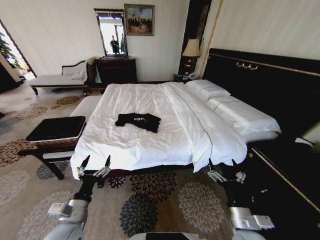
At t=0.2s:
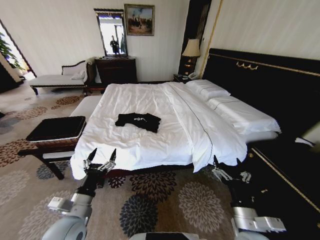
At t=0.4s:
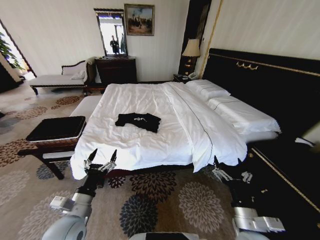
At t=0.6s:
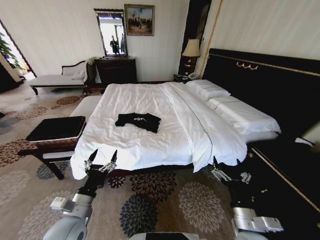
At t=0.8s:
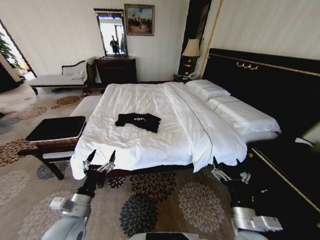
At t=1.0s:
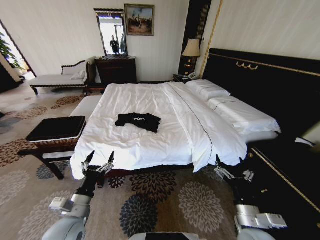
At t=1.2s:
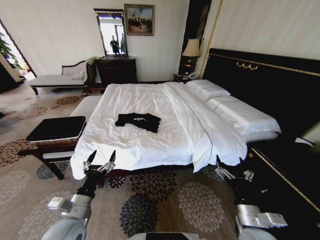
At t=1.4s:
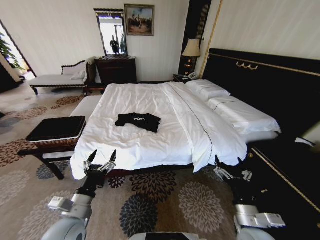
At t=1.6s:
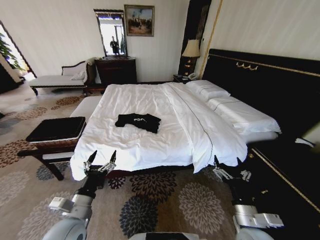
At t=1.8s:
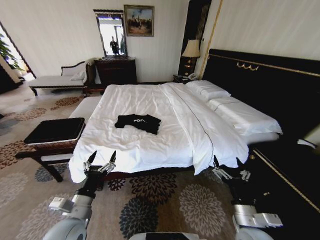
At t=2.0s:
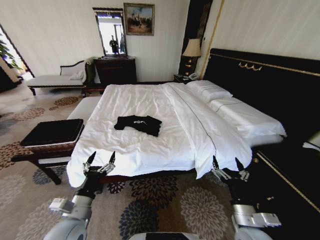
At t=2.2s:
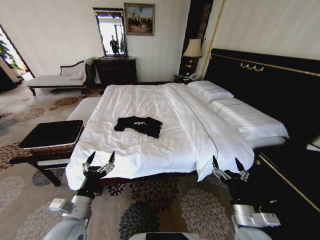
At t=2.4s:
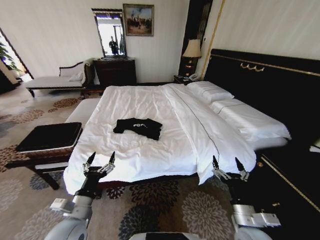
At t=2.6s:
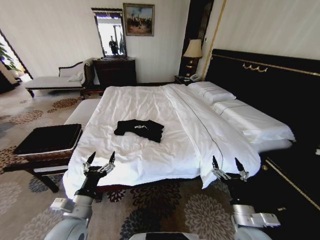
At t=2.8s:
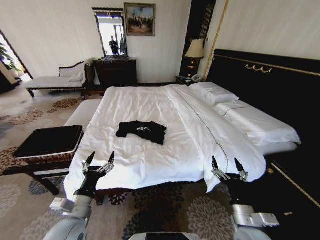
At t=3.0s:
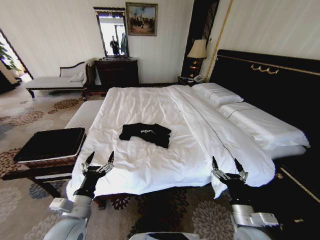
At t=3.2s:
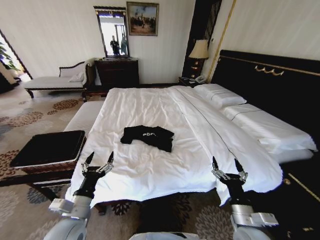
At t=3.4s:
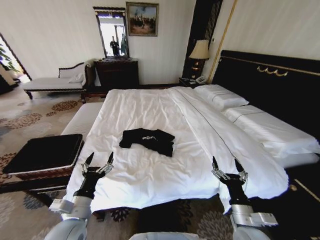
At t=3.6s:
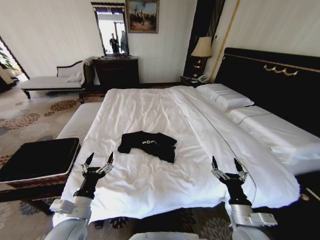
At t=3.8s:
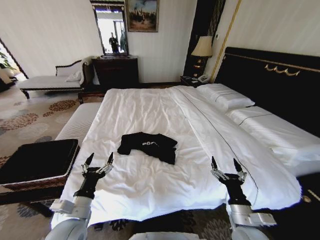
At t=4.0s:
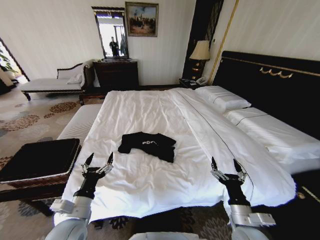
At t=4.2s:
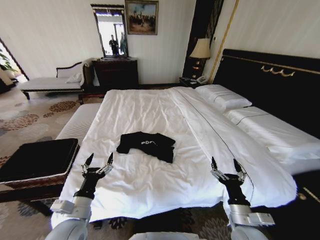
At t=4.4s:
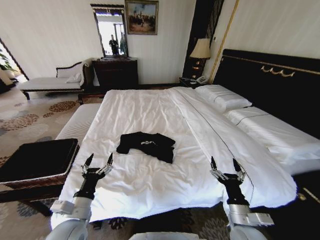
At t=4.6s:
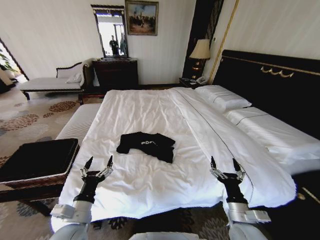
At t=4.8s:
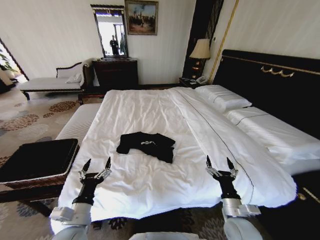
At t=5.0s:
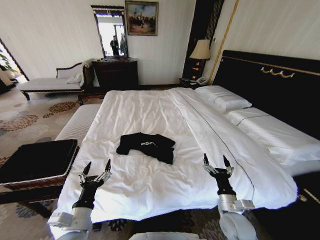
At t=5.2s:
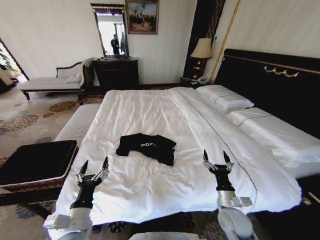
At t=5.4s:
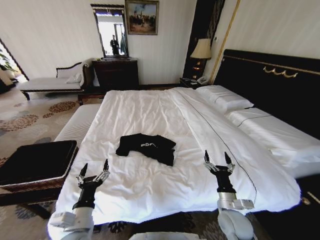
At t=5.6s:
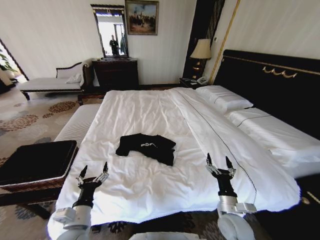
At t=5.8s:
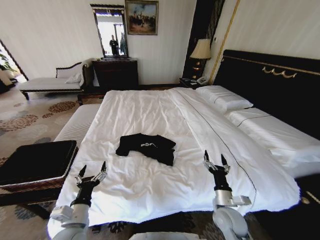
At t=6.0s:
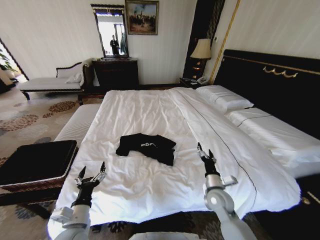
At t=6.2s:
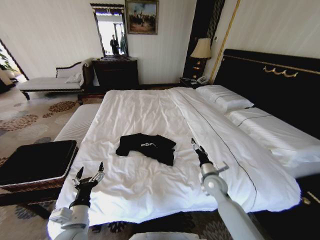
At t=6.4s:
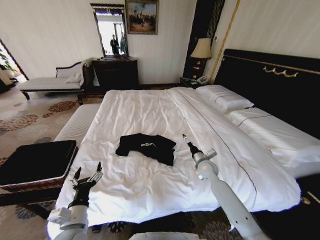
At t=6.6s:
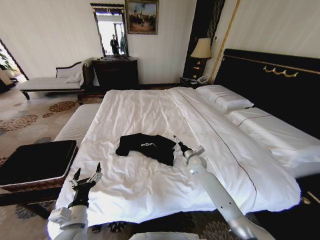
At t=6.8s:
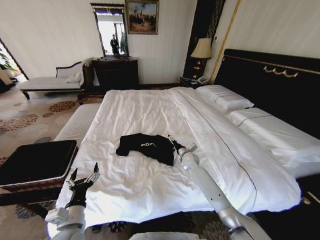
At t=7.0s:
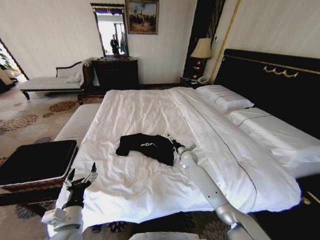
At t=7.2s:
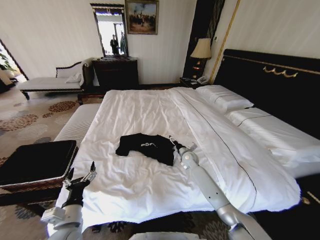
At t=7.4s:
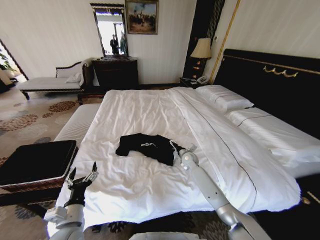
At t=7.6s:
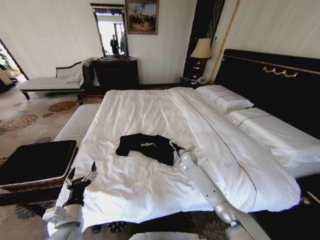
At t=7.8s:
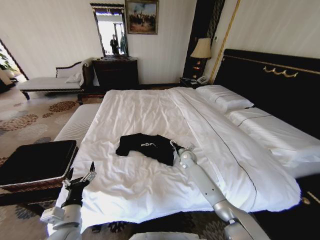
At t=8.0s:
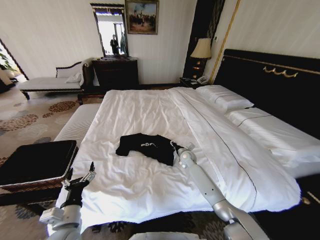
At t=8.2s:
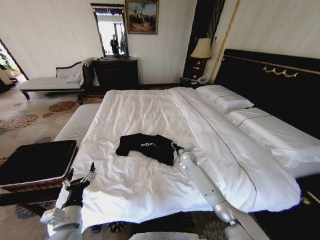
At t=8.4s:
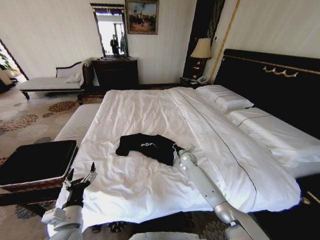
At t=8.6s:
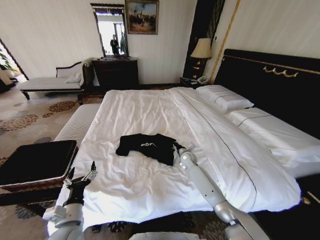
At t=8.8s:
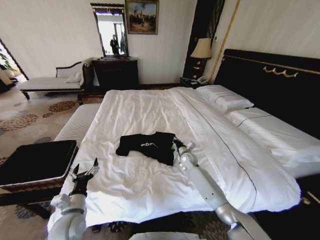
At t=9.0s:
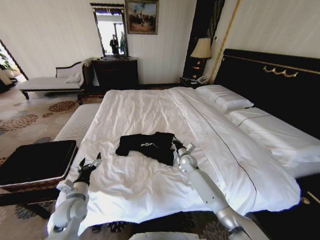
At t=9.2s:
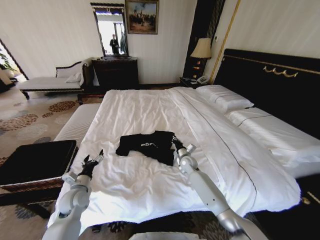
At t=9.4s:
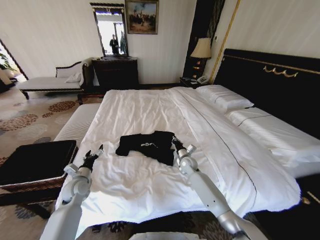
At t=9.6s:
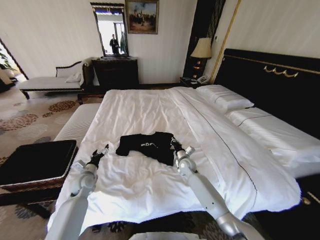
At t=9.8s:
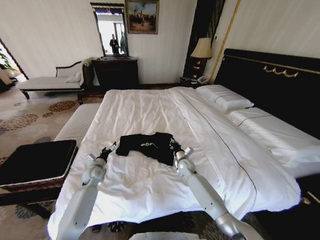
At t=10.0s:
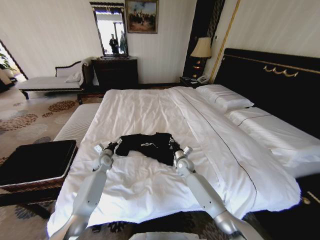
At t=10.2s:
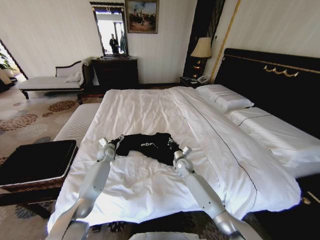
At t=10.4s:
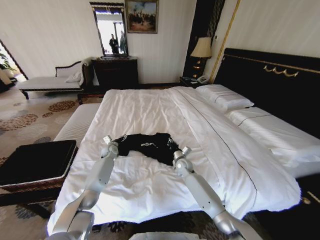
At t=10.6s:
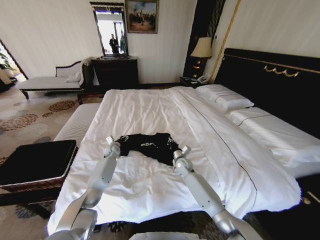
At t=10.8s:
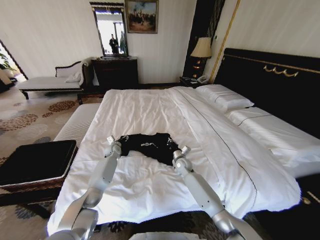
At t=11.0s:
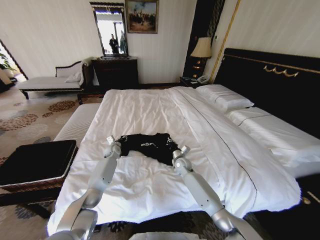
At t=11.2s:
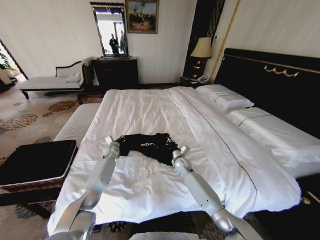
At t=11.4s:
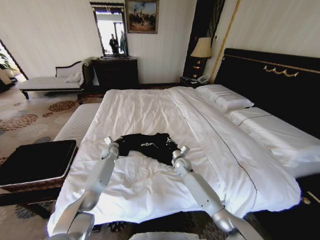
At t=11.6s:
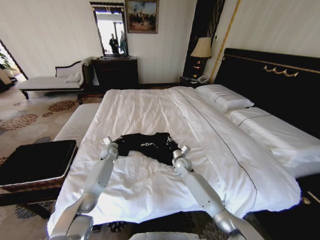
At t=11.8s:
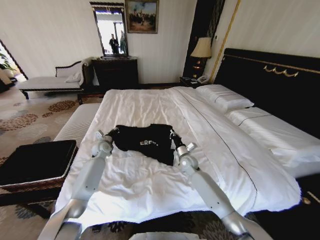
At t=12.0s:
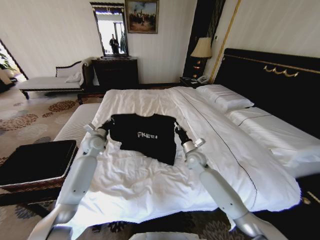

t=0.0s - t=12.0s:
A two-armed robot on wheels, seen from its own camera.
Task of the whole recording: Fold the clothes on the bed and place them into the basket.
t=4.4s - t=6.0s: The right gripper moves forward, some 15 cm.
t=6.0s - t=7.6s: The right gripper goes approximately 20 cm forward.
t=7.6s - t=9.0s: The left gripper moves forward, roughly 10 cm, while the right gripper closes.
t=9.0s - t=10.4s: The left gripper shifts some 30 cm forward.
t=10.4s - t=12.0s: The right gripper shifts some 10 cm upward. The left gripper heads upward and backward, covering about 15 cm, and closes its fingers.

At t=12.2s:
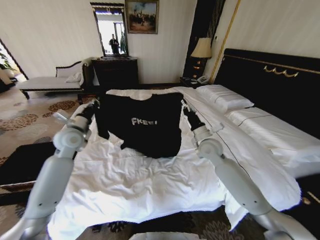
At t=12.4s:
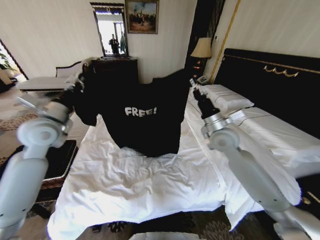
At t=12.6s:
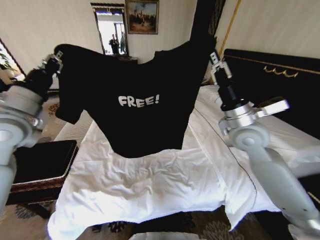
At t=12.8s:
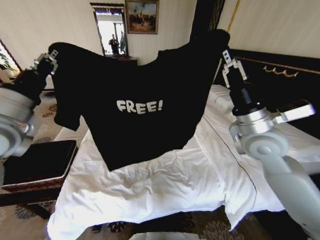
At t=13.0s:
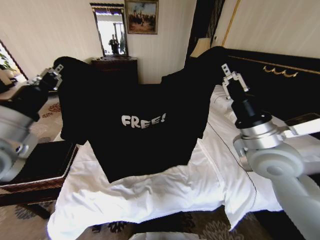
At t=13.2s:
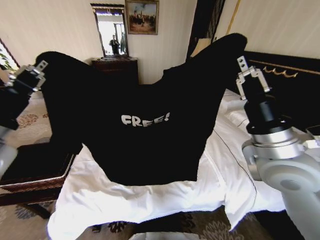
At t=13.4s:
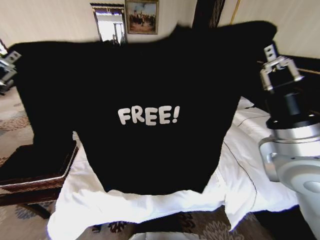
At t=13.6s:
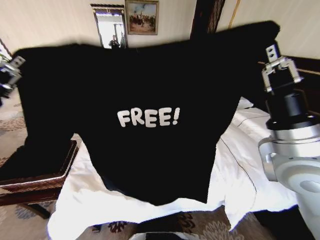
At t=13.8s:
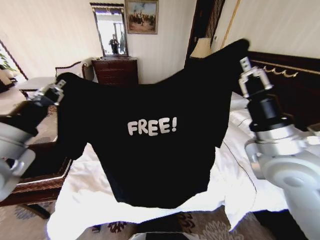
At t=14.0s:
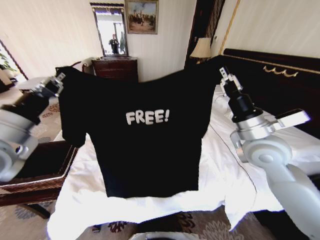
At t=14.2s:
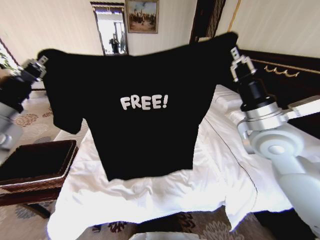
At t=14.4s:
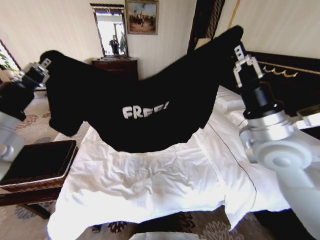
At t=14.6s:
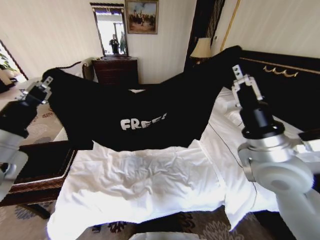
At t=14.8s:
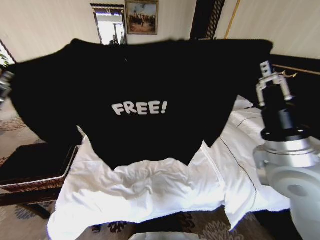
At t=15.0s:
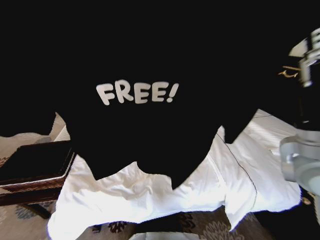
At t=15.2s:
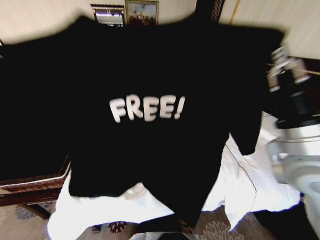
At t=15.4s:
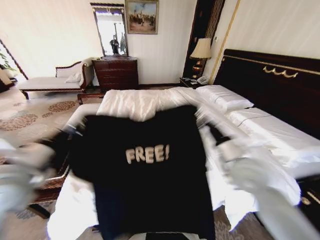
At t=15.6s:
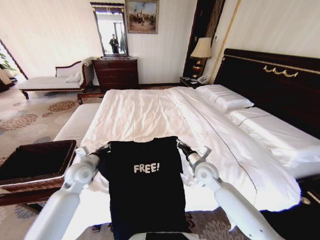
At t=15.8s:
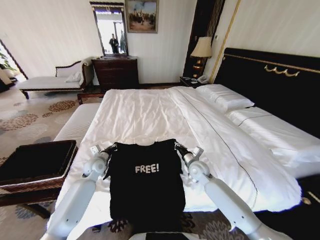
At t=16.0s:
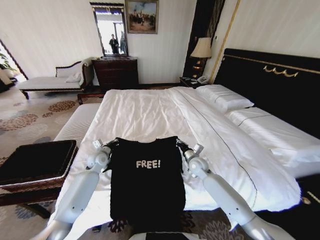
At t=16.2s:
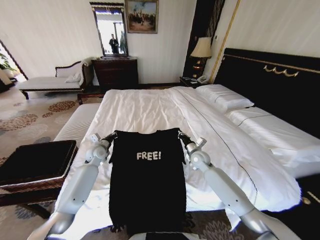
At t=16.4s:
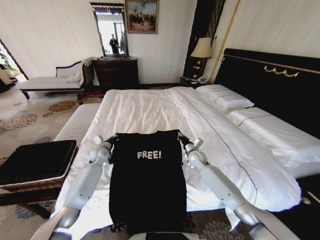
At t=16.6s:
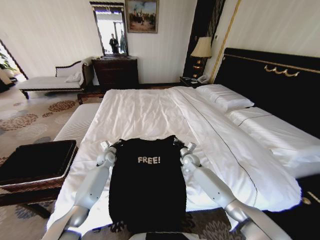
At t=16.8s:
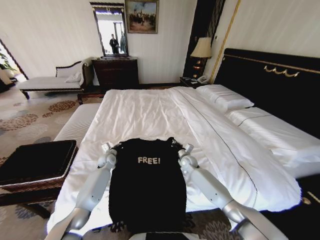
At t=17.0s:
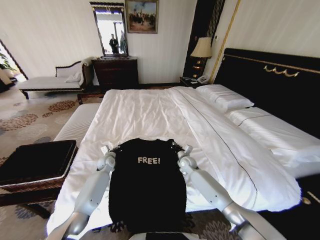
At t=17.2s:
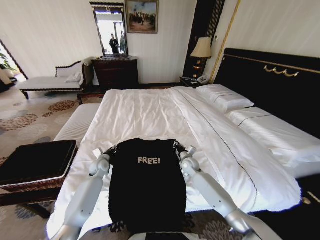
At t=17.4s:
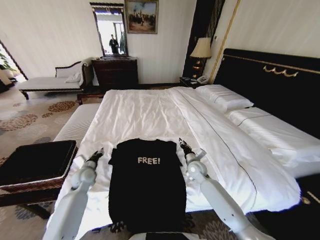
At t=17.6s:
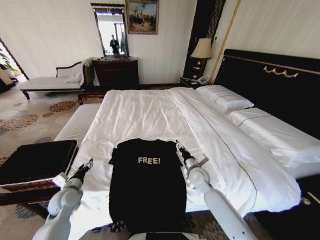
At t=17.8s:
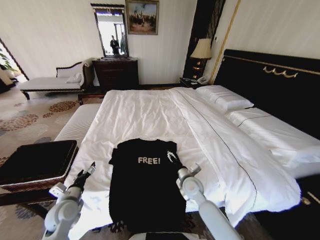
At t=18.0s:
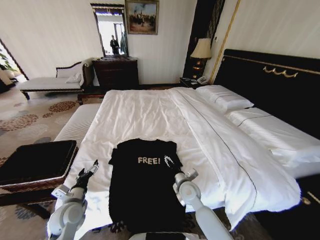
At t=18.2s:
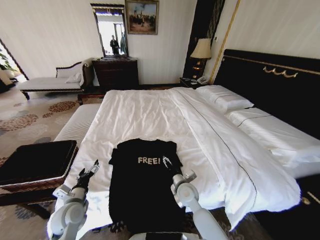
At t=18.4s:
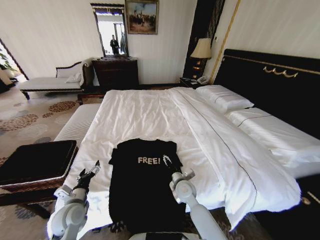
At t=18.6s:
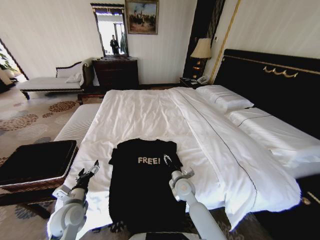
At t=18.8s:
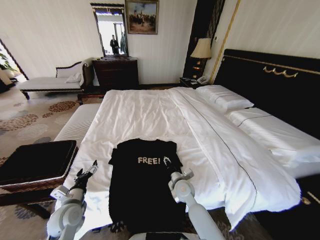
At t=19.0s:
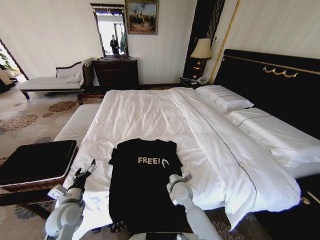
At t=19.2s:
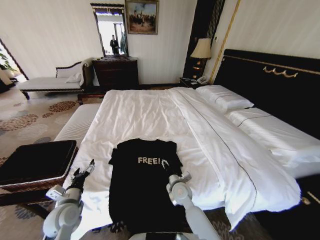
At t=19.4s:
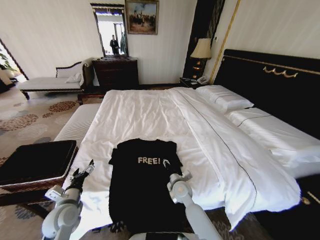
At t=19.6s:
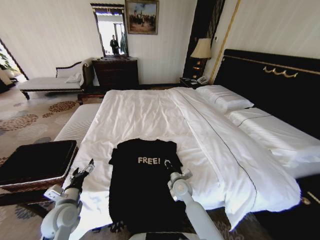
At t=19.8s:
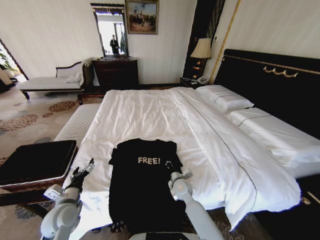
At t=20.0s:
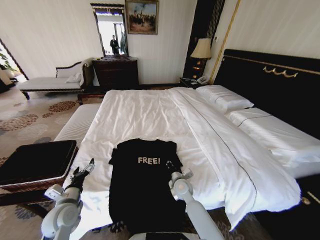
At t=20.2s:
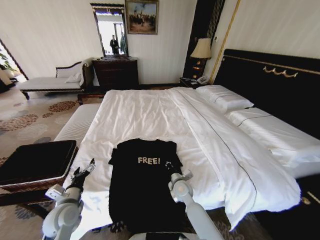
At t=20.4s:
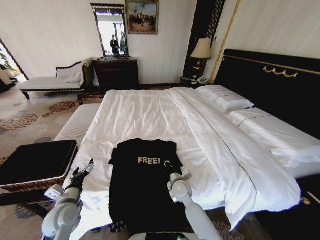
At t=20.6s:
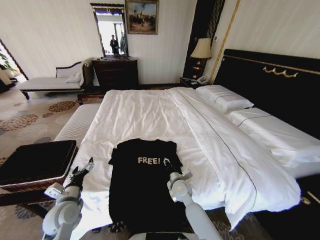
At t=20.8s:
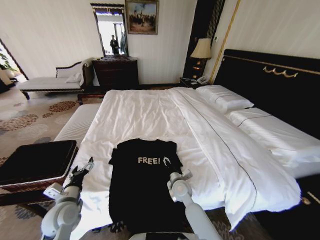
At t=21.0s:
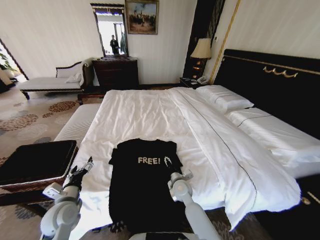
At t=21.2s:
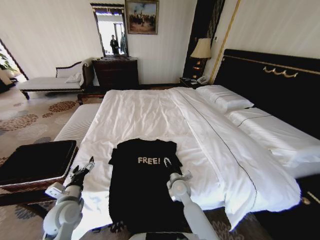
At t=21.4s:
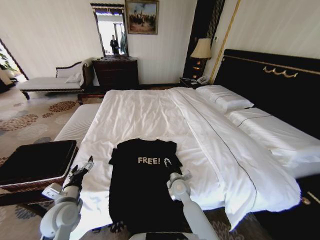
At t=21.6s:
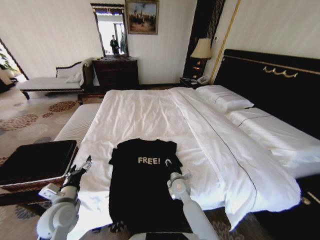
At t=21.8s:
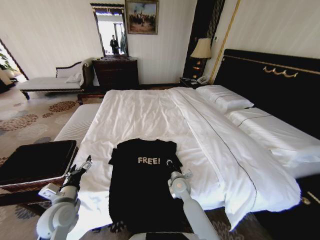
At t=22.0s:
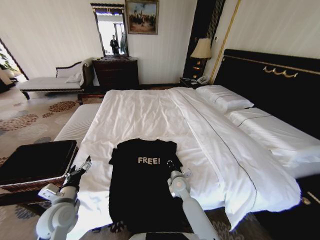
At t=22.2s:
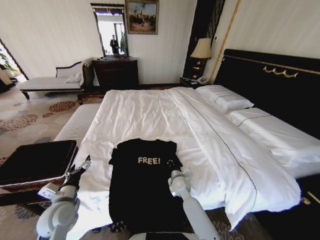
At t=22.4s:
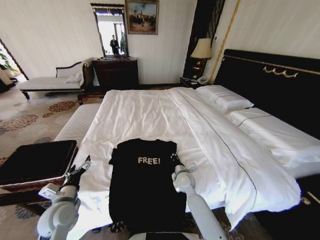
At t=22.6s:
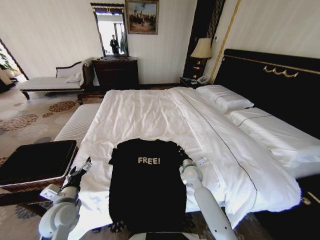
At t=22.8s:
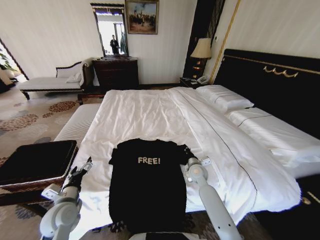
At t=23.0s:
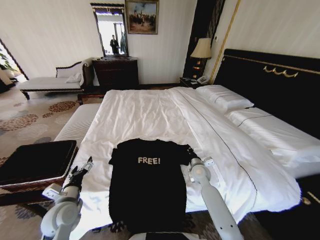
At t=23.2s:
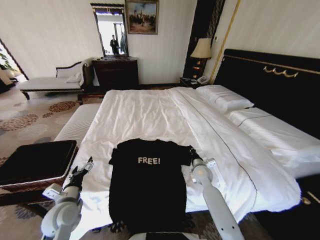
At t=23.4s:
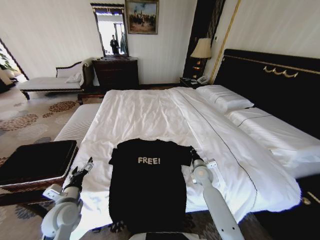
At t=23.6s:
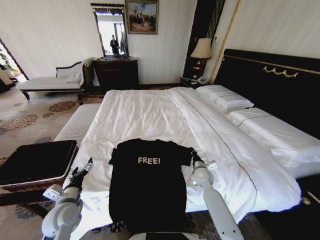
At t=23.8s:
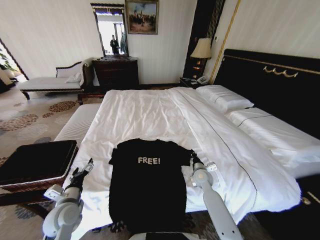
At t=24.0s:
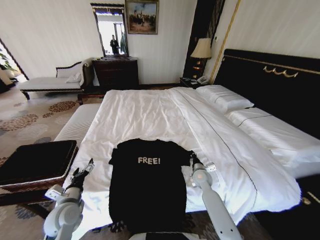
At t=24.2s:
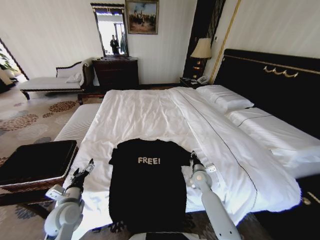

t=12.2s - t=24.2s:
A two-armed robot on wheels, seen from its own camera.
Task of the whole recording: Fold the clothes on the bed and place them into the basket.
t=12.2s - t=13.8s: Both grippers move backward and upward, about 25 cm.
t=13.8s - t=15.2s: The right gripper reaches roughly 5 cm forward, then returns, while the left gripper is displaced backward by approximately 5 cm.
t=15.2s - t=16.6s: Both grippers travel together downward and forward, about 50 cm.
t=16.6s - t=18.2s: The left gripper heads backward, covering about 30 cm, and opens up. The right gripper shifts about 20 cm backward and to the left, and opens.
t=18.2s - t=19.8s: The right gripper closes.
t=19.8s - t=21.2s: The right gripper opens up.
t=21.2s - t=22.6s: The right gripper is displaced to the right and forward by approximately 10 cm, and closes.
t=22.6s - t=24.2s: The right gripper moves to the right, about 5 cm.
